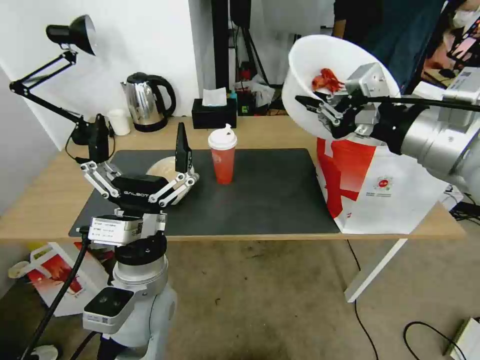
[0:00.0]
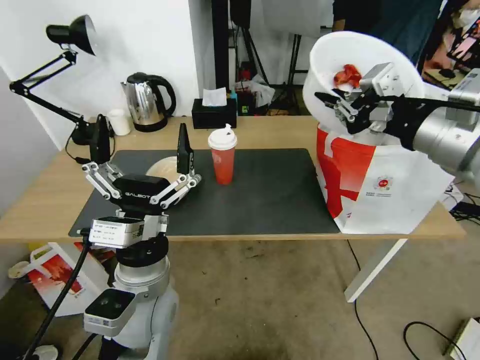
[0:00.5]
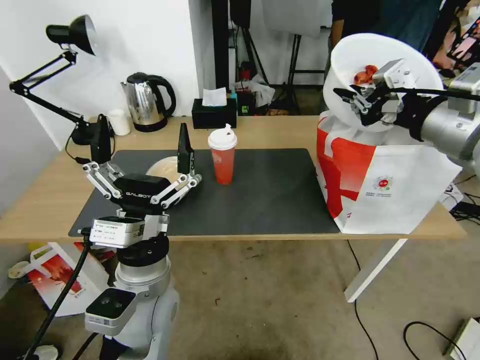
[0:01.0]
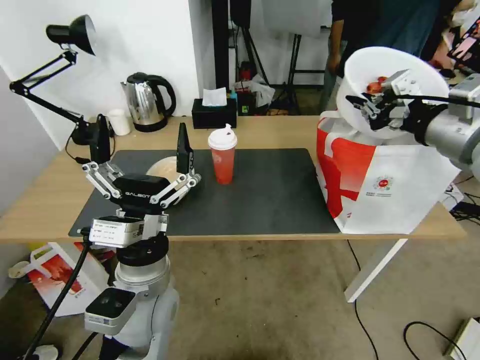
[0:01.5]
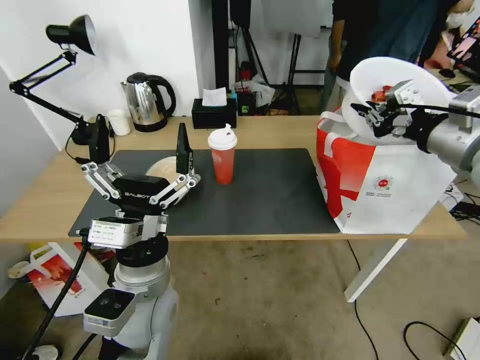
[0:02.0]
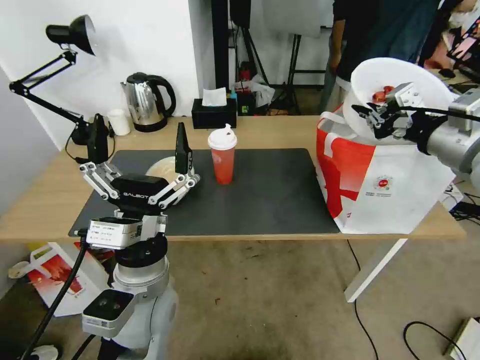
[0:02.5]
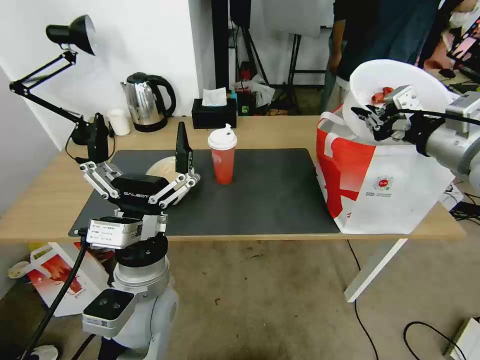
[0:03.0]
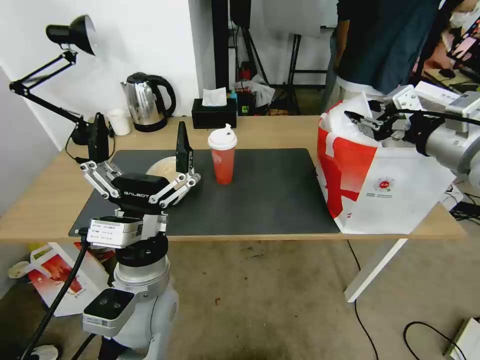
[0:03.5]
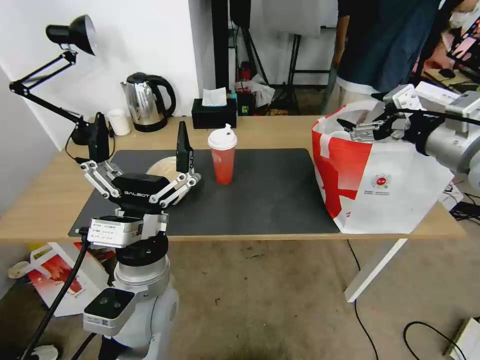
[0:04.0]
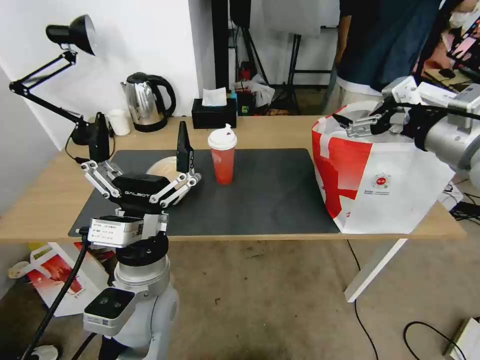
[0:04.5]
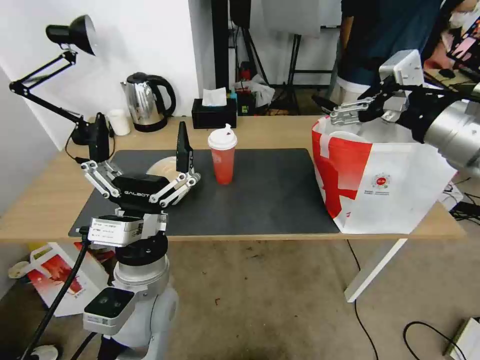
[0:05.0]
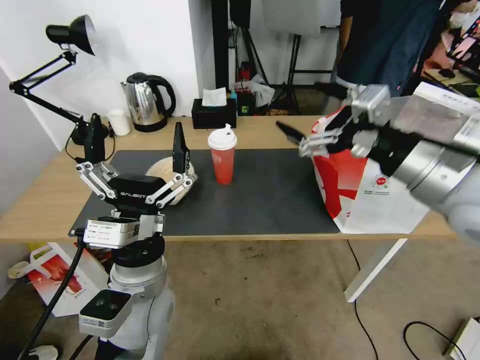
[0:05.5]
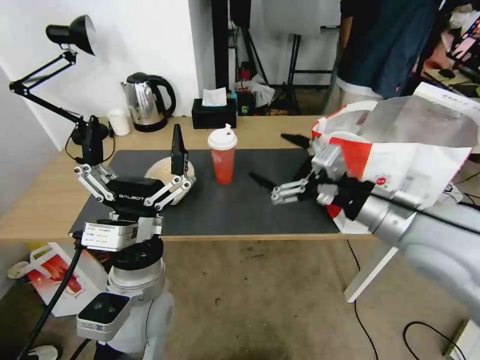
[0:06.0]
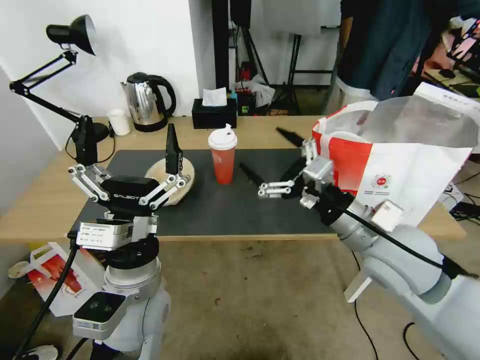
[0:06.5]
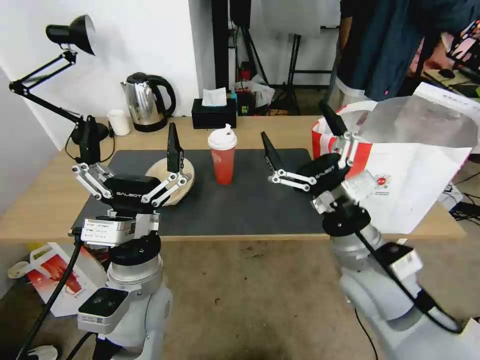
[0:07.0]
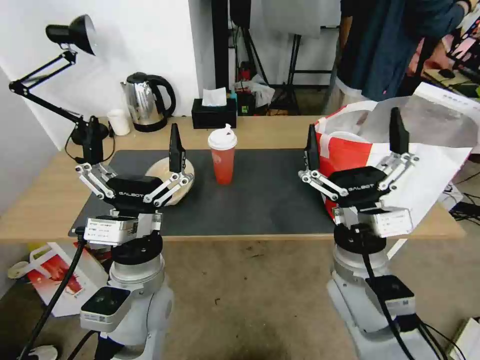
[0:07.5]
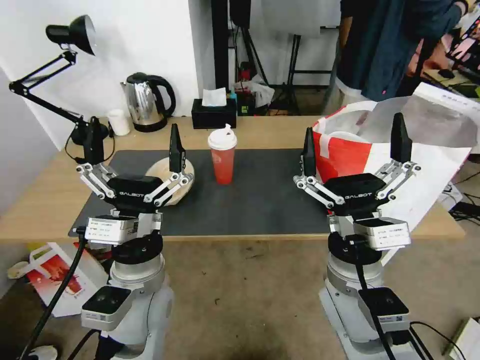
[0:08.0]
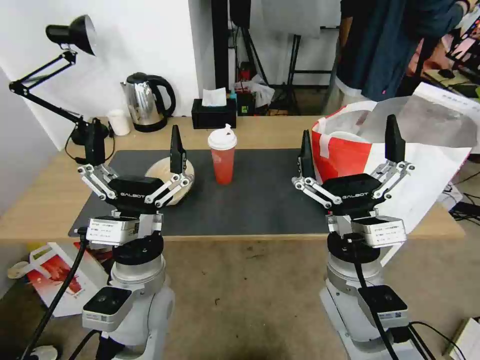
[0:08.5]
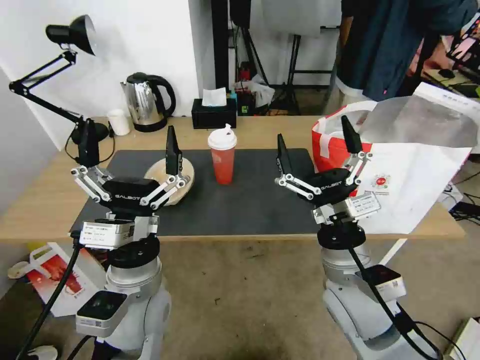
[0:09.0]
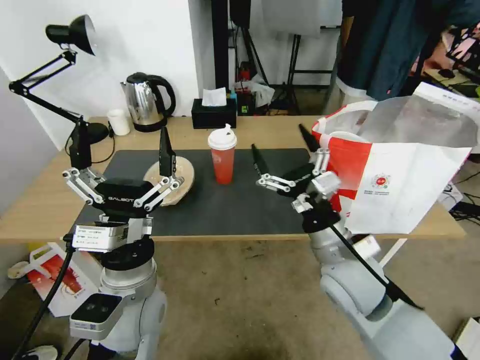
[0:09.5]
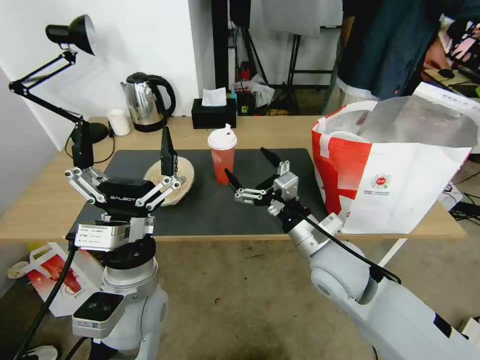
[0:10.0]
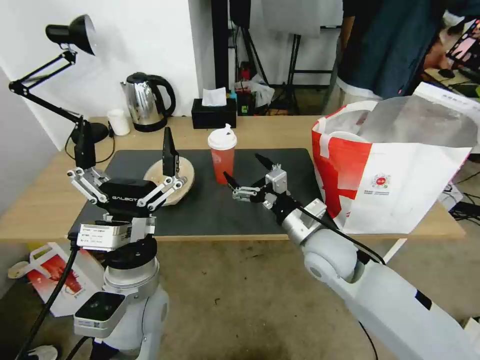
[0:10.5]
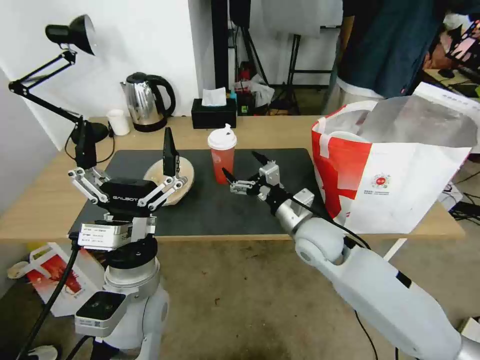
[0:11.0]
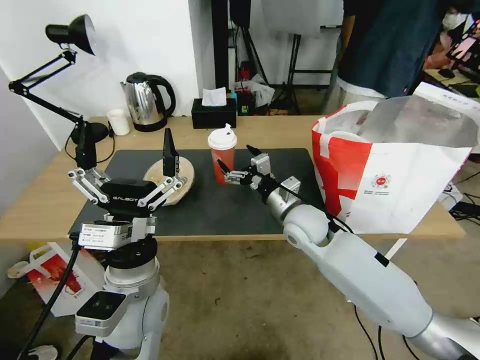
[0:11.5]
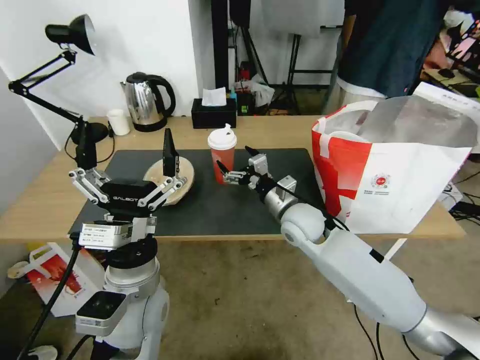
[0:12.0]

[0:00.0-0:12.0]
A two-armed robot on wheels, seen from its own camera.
Task of the whole recording: Pick up the trash from the table and place it into the takeout bag.
0.0 to 2.0 s: The right gripper is displaced to the right by approximately 10 cm.
2.0 to 4.0 s: The right gripper opens its fingers.
4.0 to 6.0 s: The right gripper heads to the left, backward and downward, covering some 15 cm.
6.0 to 8.0 s: The right gripper moves downward and to the left, roughly 15 cm.
8.0 to 10.0 s: The right gripper goes about 5 cm forward.
10.0 to 12.0 s: The right gripper is displaced forward by roughly 10 cm.

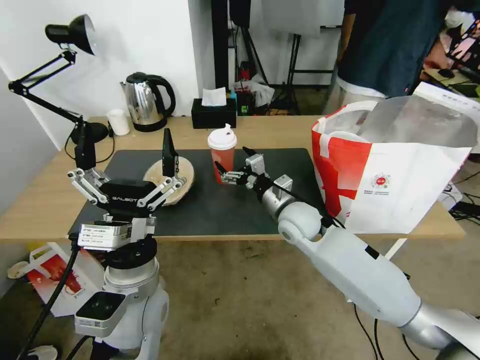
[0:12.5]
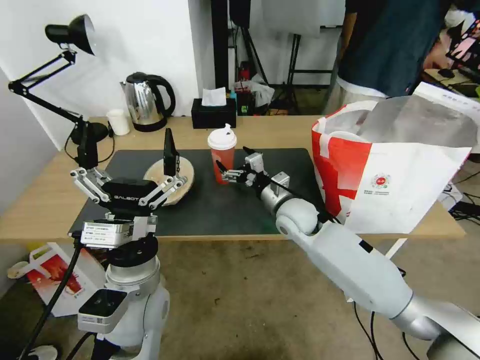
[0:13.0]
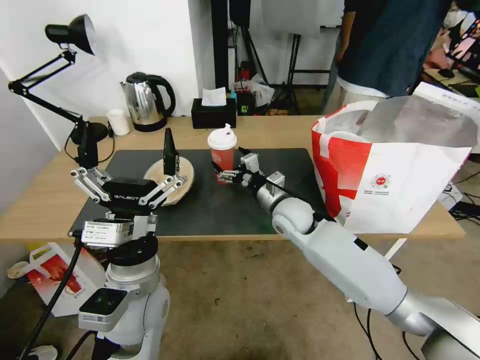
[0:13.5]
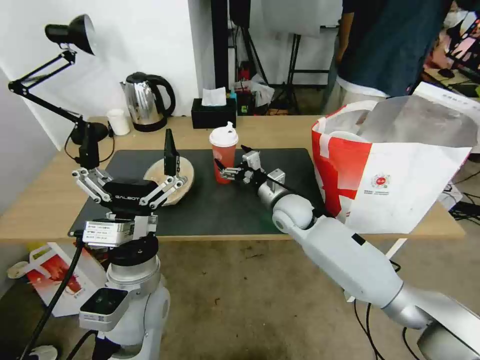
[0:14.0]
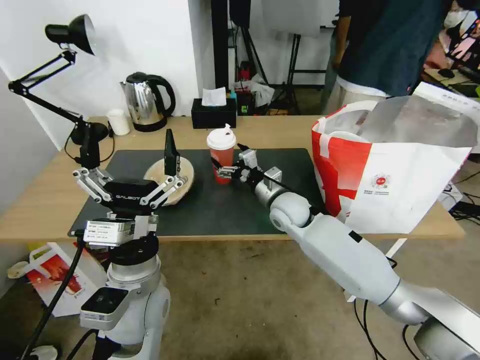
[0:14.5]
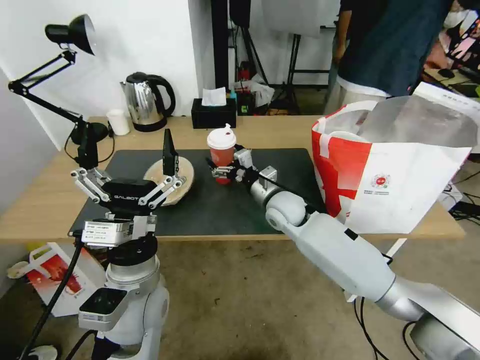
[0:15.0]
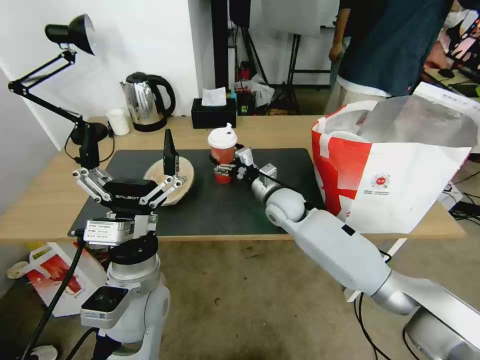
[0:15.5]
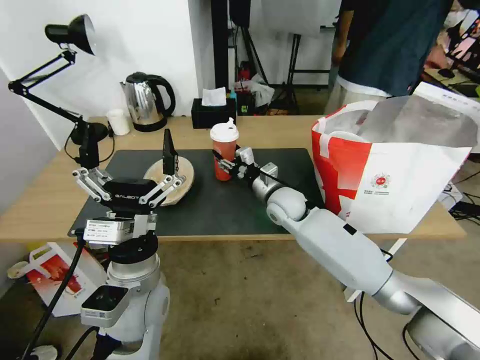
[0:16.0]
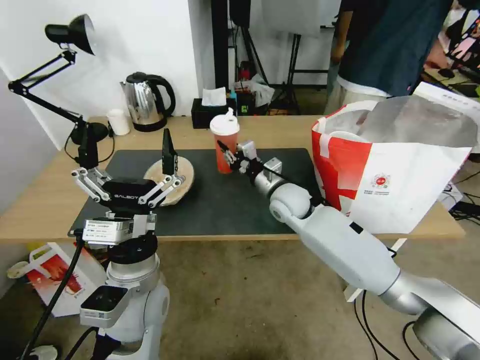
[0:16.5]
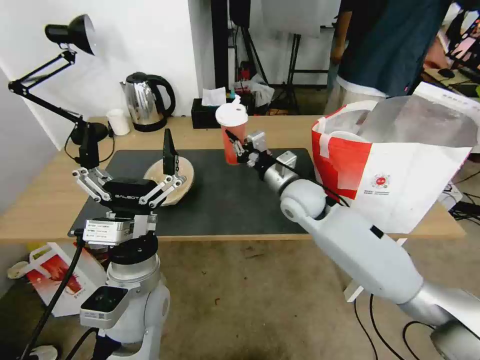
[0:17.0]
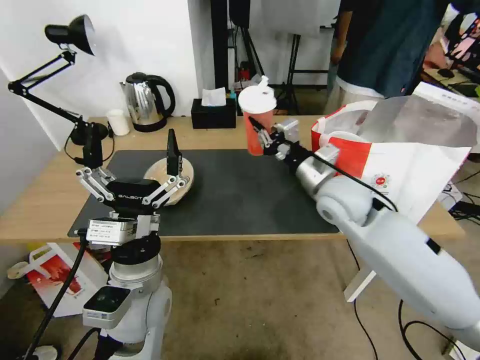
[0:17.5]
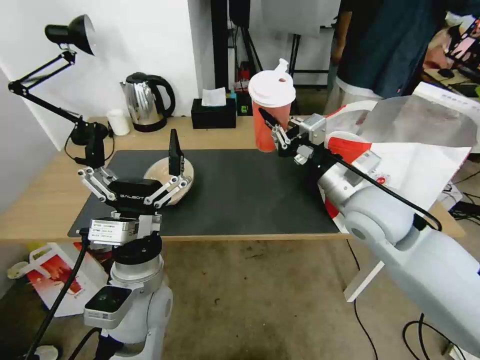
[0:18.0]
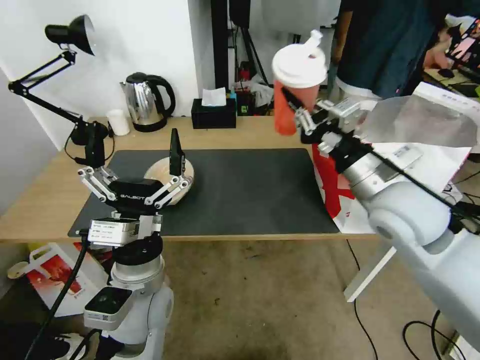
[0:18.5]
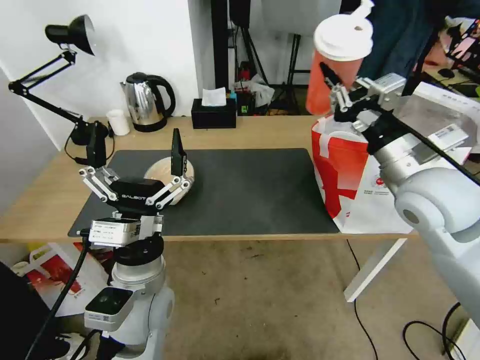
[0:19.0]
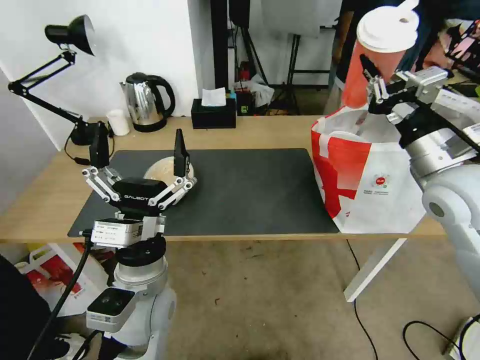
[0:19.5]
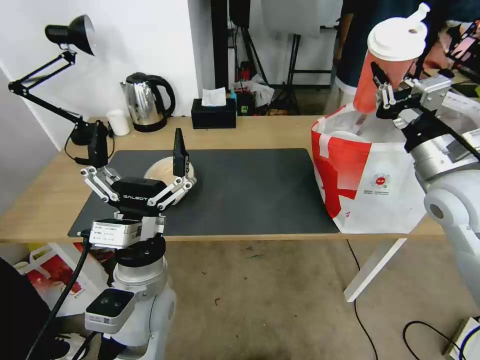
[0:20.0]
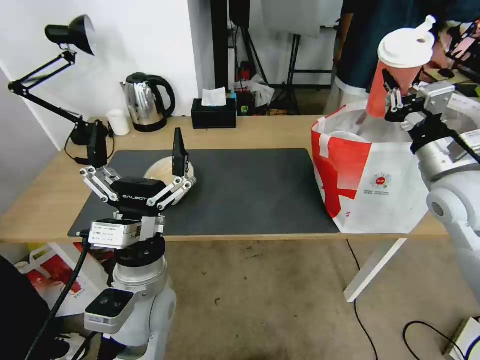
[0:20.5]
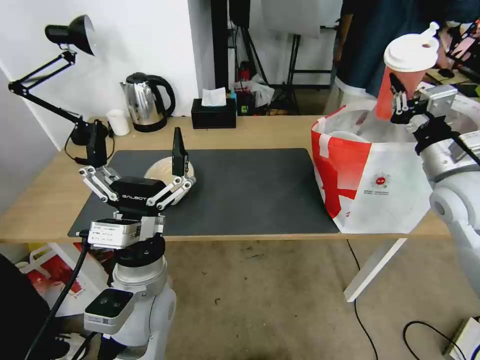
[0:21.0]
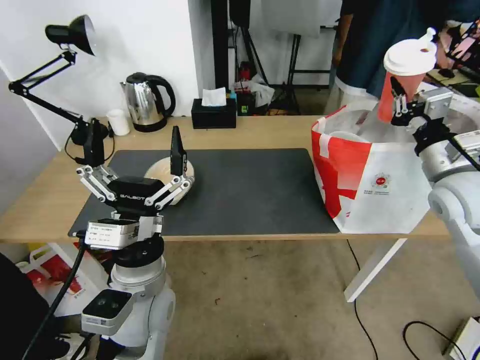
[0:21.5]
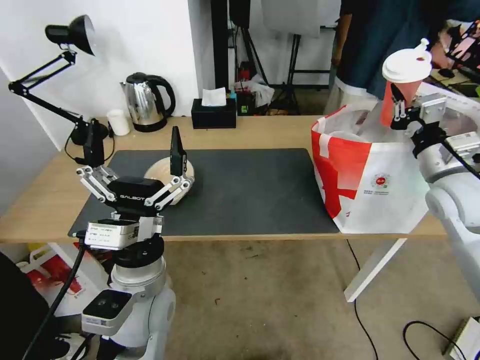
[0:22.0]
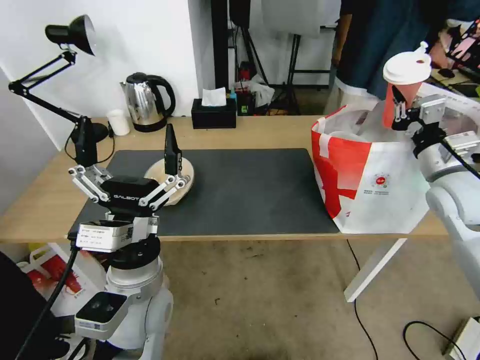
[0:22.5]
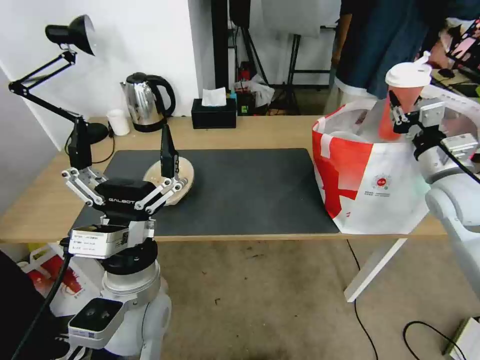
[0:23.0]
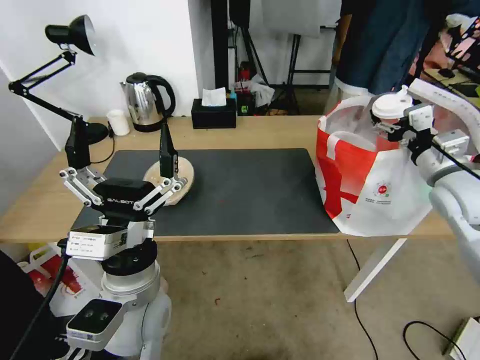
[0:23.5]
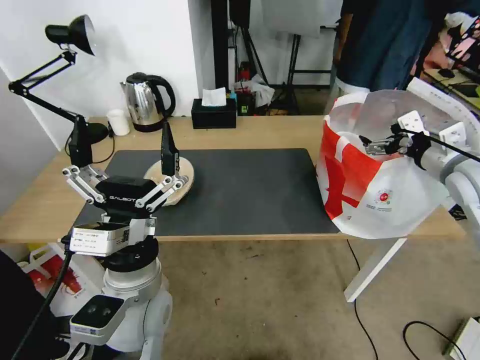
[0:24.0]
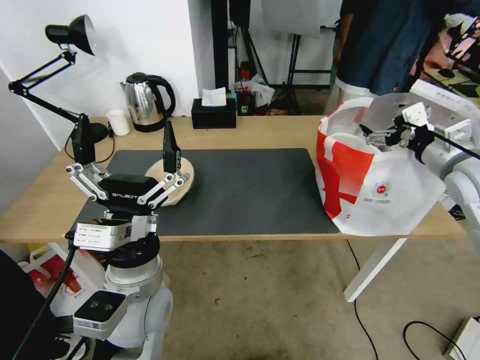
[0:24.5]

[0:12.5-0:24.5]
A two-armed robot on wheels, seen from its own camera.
Task of the whole recording: Pick up the trash from the table and place it into the takeout bag.
12.5 to 14.5 s: The grippers move only a little.
14.5 to 16.5 s: The right gripper closes up.
16.5 to 18.5 s: The right gripper goes roughly 25 cm upward, backward and to the right.
18.5 to 20.5 s: The right gripper shifts roughly 15 cm to the right.
20.5 to 22.5 s: The right gripper changes place by about 5 cm.
22.5 to 24.5 s: The right gripper opens up.

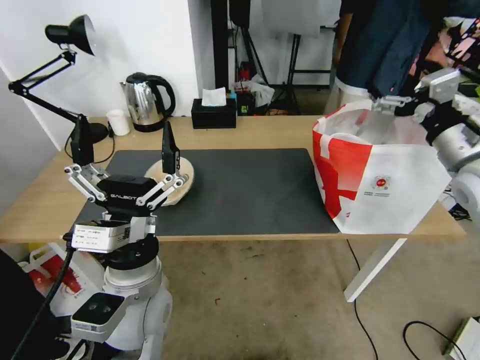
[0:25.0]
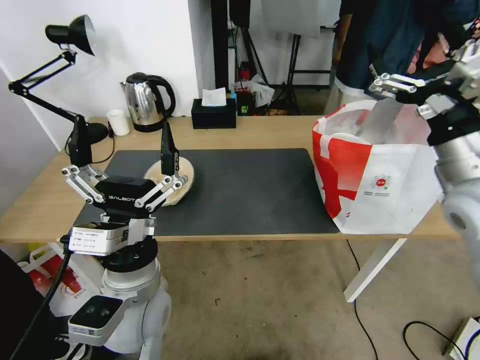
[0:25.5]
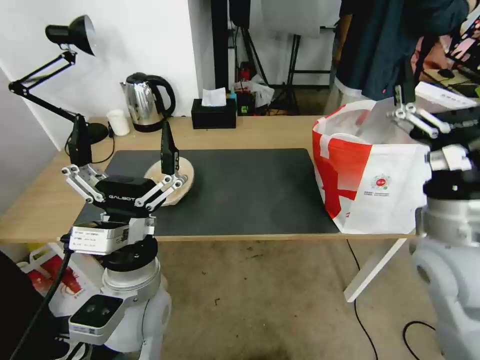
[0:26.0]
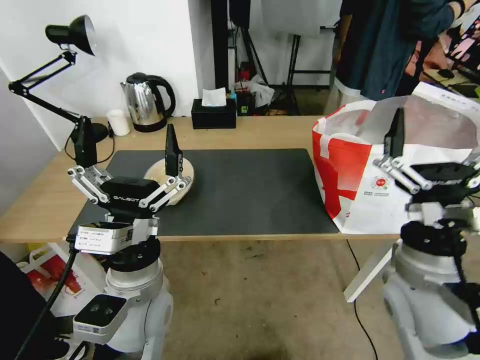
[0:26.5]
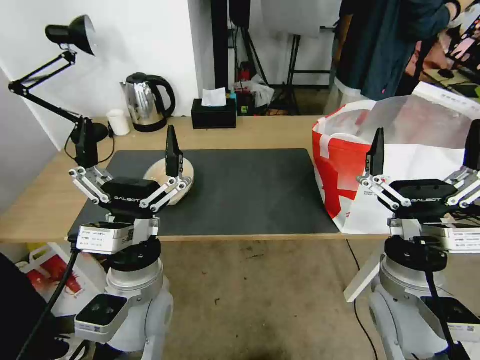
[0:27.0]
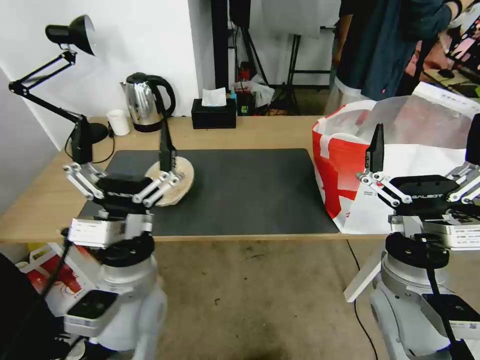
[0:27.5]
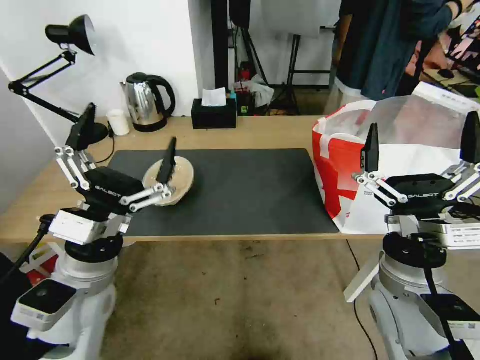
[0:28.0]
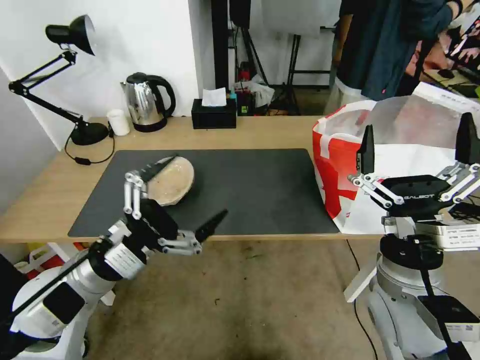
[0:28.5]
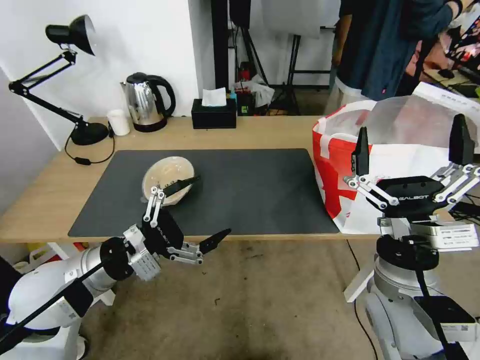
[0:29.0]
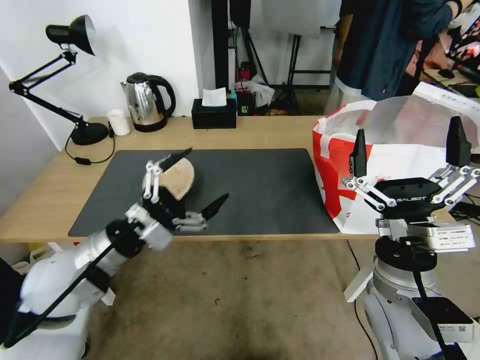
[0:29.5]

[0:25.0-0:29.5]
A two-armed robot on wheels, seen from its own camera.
Task of the whole recording: Pick up the trash from the table and place it into the takeout bag.
25.0 to 27.0 s: The right gripper heads downward, to the left and backward, covering roughly 25 cm.
27.0 to 29.5 s: The left gripper travels to the left by about 10 cm.
